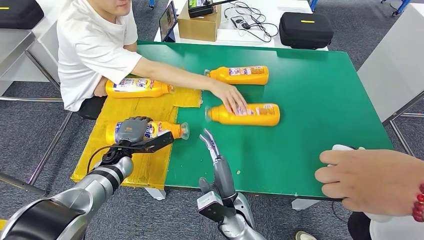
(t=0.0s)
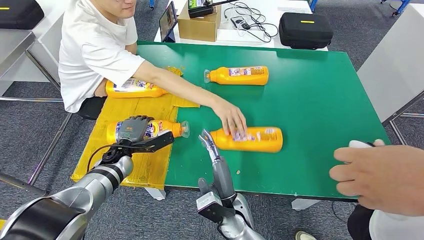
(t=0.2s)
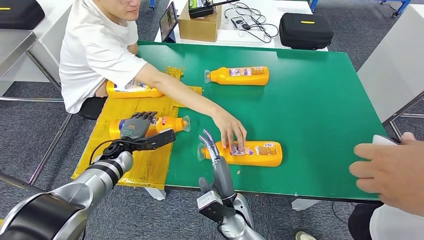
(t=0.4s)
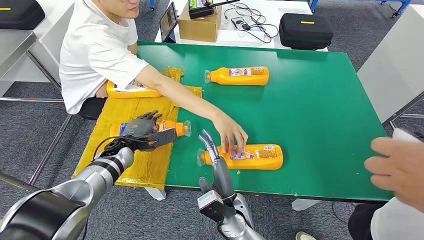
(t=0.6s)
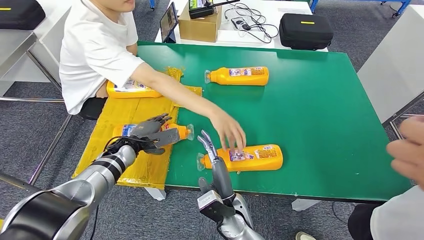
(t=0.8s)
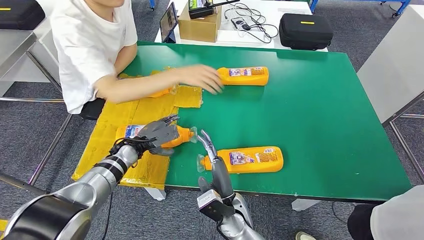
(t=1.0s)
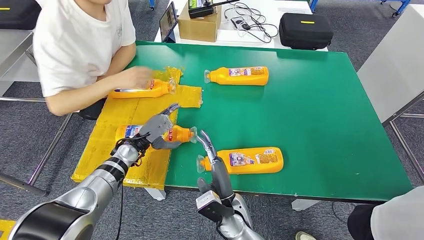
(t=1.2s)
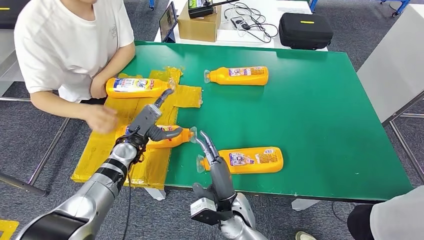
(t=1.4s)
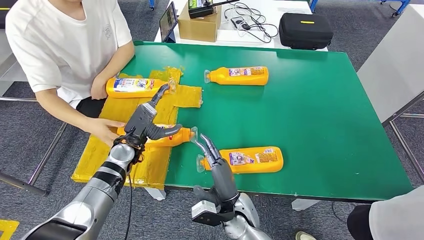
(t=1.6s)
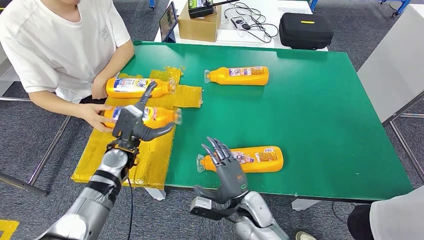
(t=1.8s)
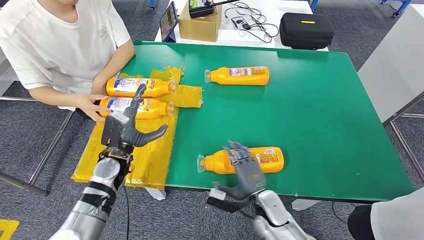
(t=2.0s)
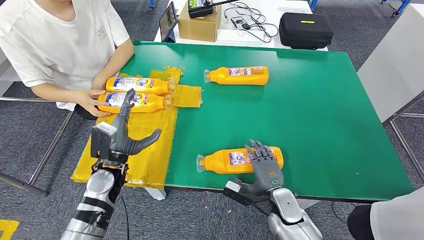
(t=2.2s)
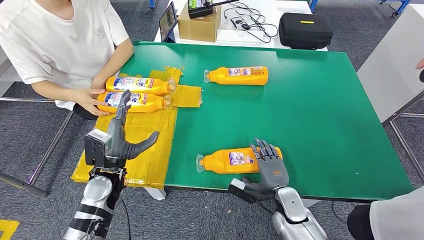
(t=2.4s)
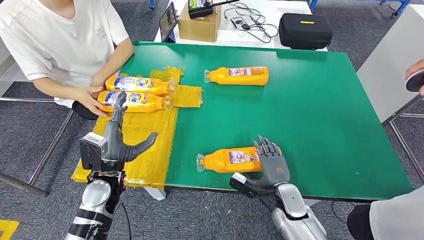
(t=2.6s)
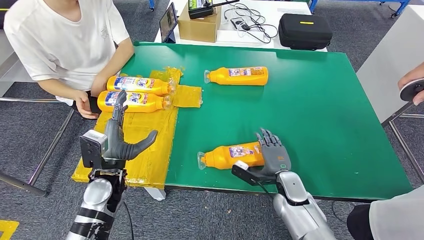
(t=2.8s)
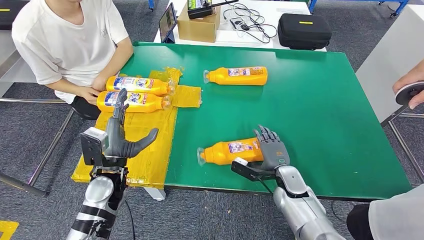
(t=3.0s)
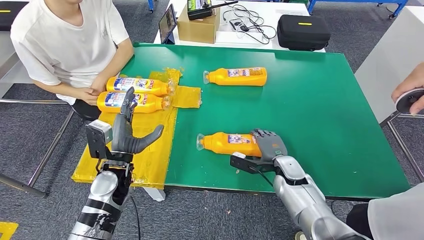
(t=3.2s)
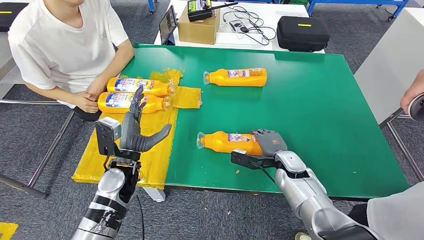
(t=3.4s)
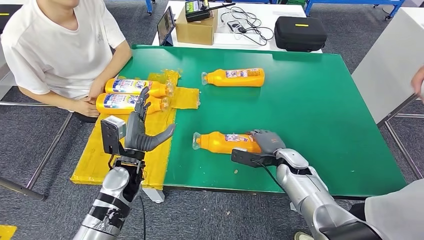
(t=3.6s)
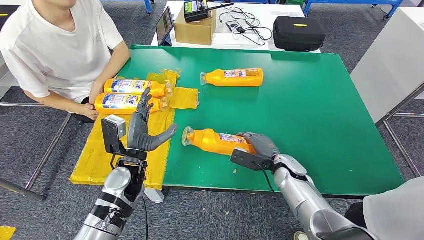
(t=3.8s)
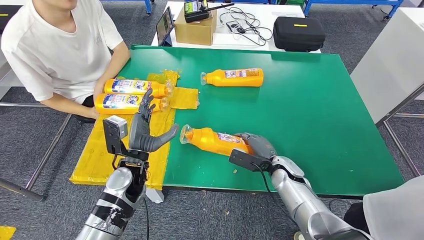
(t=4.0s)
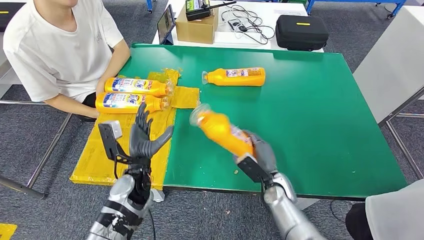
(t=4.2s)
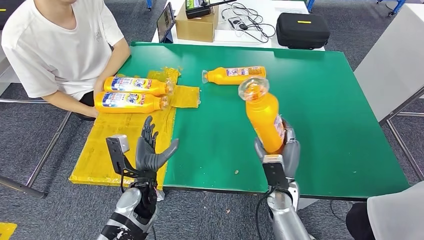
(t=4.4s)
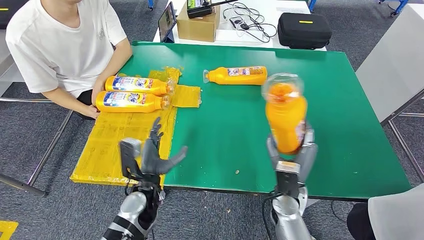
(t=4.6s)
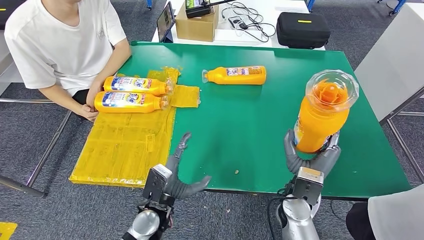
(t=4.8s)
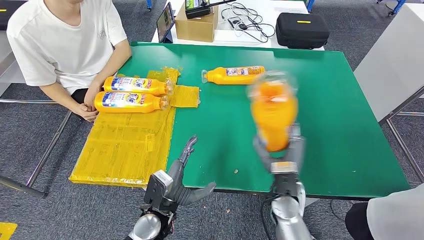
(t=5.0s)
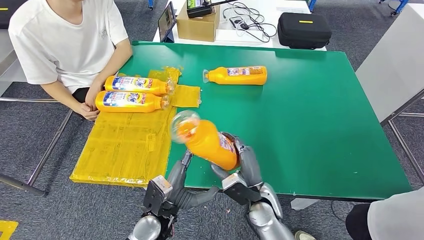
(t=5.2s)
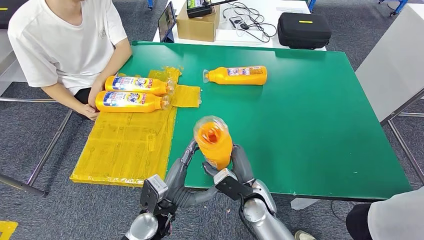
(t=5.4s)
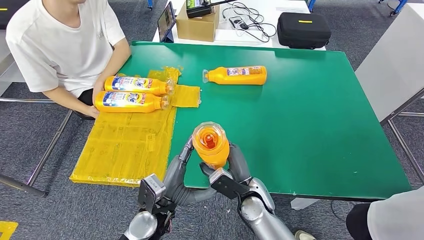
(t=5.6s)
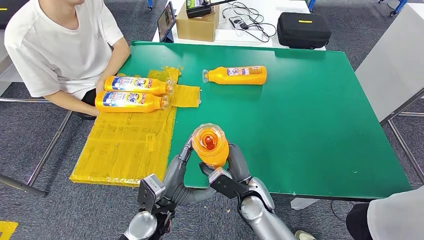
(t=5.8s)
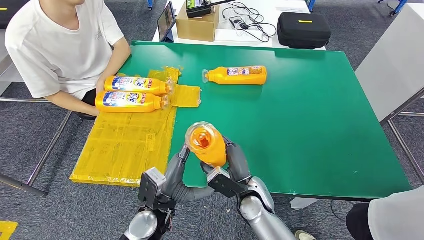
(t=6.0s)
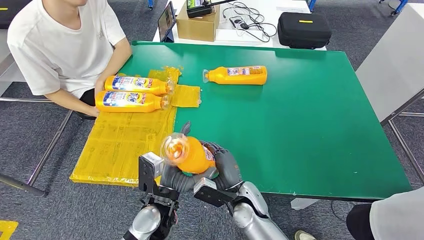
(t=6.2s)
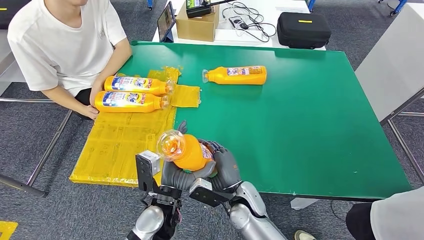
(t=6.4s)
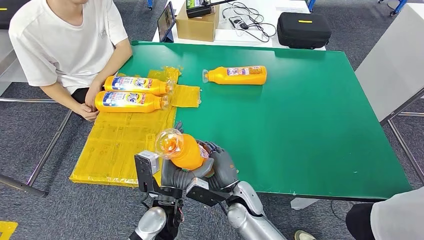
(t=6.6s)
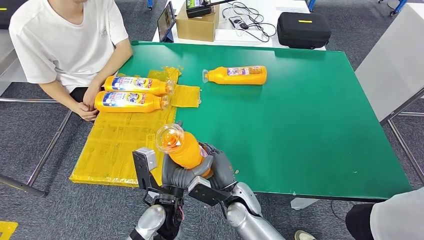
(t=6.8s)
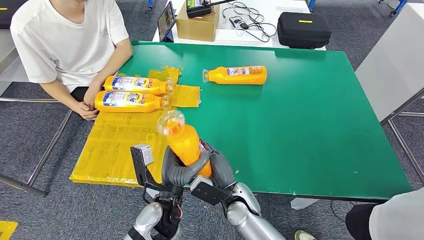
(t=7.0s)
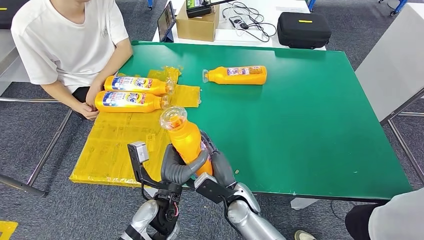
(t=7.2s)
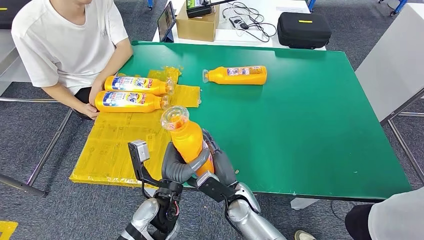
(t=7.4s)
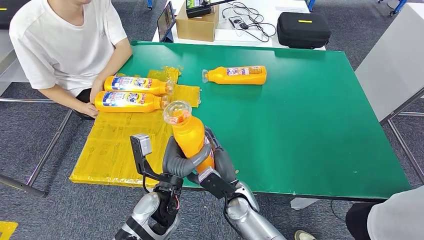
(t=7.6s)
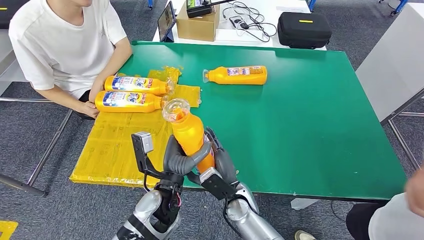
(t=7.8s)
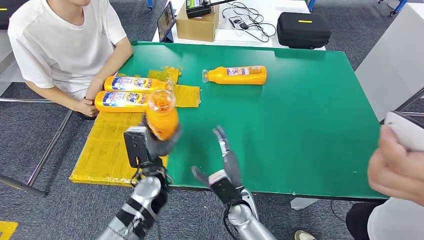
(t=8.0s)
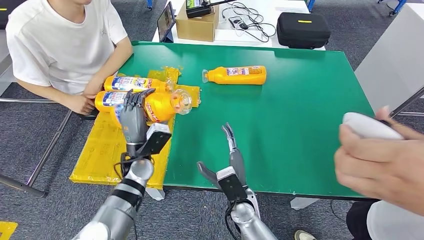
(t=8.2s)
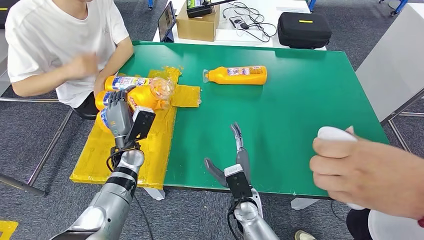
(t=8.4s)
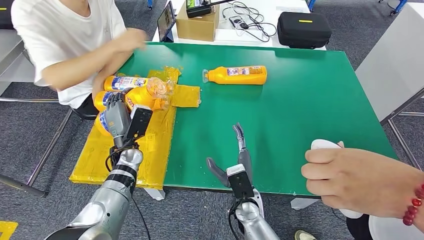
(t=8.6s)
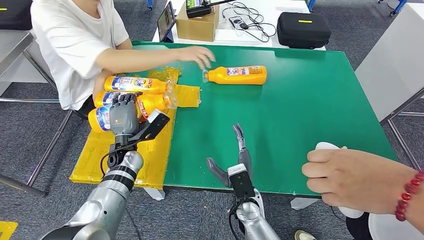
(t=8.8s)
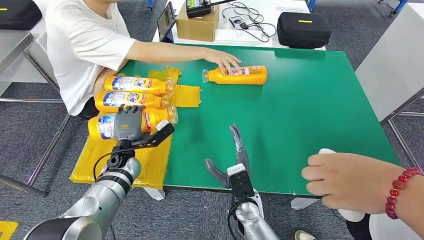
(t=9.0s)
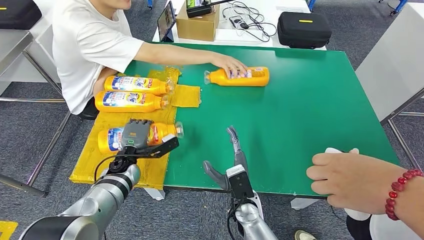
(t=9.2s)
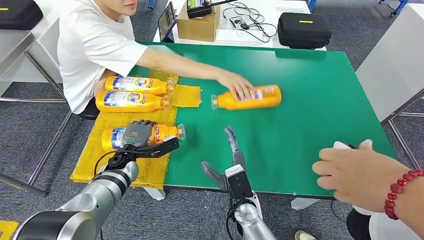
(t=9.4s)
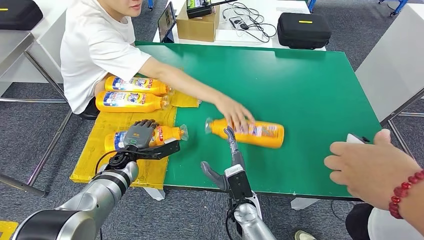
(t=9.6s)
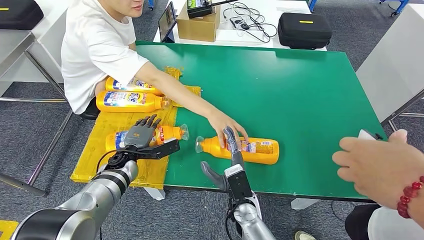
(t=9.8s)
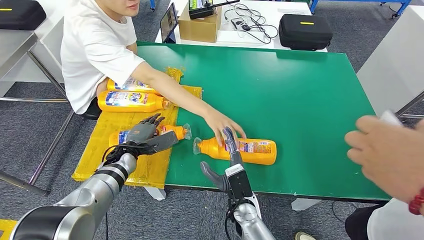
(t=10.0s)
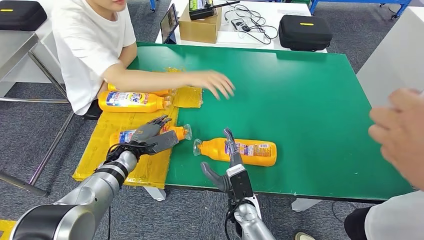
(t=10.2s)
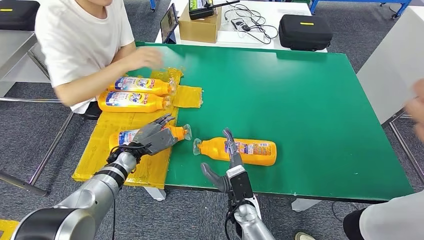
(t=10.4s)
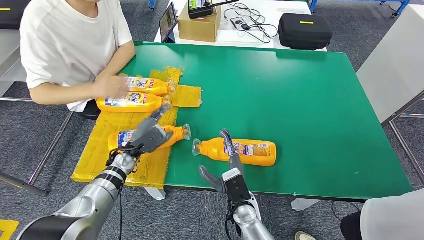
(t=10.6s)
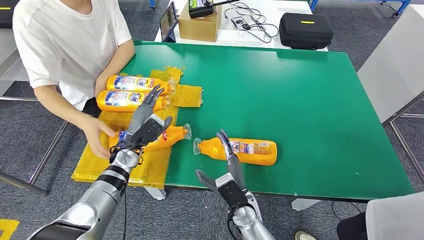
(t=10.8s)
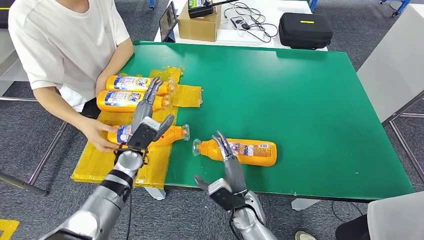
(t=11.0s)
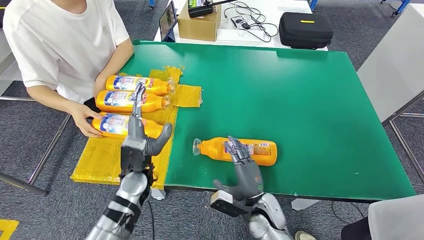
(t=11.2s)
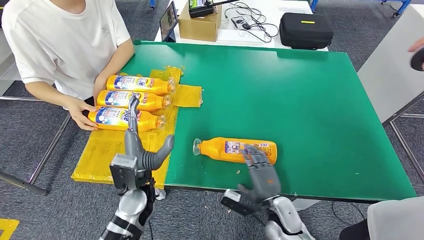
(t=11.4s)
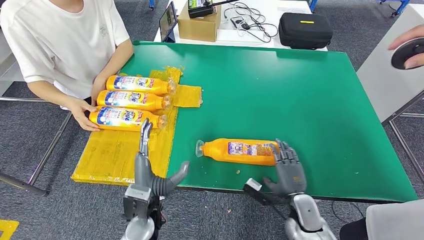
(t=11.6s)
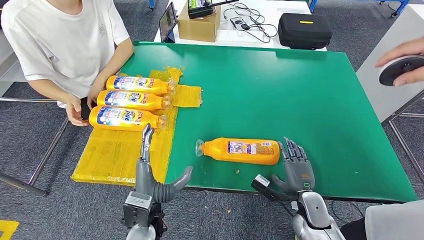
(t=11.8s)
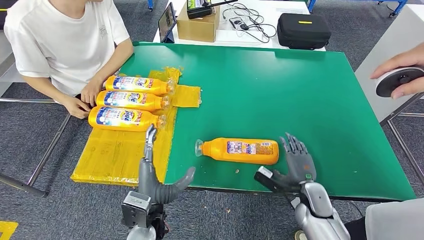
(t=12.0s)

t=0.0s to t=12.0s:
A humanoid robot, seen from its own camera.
Step, t=3.2s to t=4.8s: Pick up the fast-moving consumer goods bottle from the table.
Step, t=5.4s to t=10.8s: Flip the fast-moving consumer goods bottle to the front side.
t=4.4s to t=6.0s: The right hand travels to the left by approximately 5 cm. The left hand heads backward, covering some 5 cm.

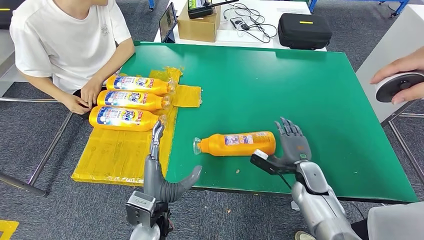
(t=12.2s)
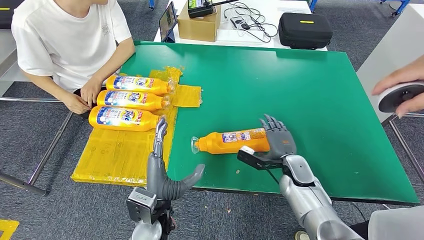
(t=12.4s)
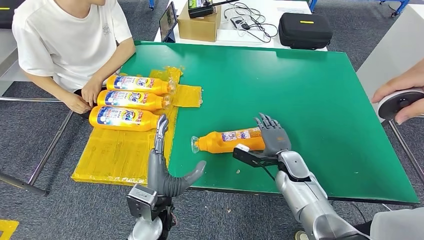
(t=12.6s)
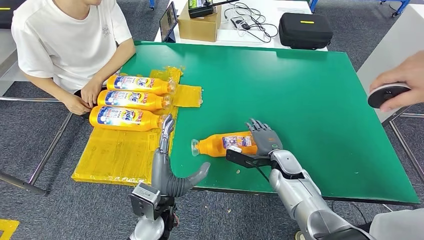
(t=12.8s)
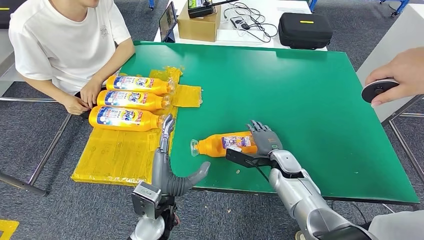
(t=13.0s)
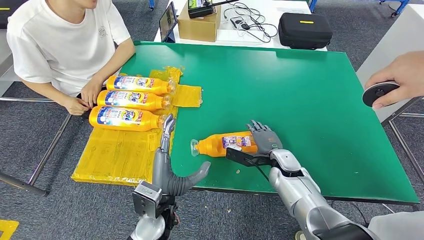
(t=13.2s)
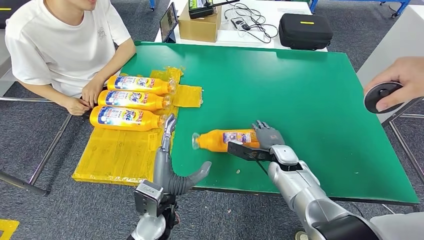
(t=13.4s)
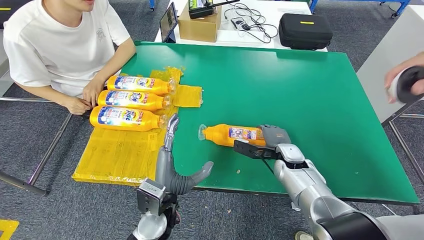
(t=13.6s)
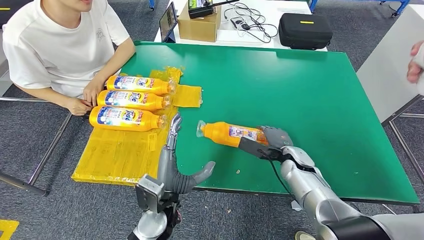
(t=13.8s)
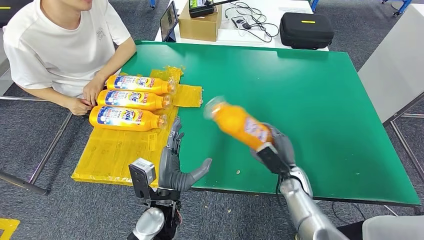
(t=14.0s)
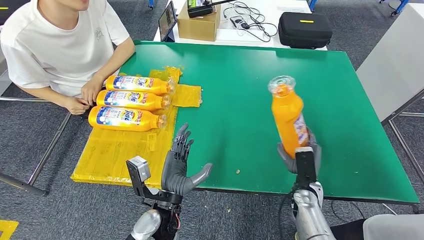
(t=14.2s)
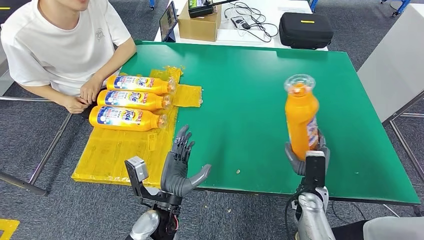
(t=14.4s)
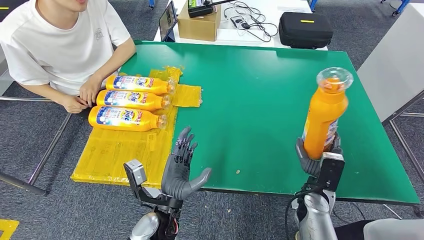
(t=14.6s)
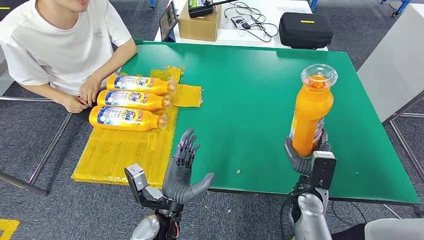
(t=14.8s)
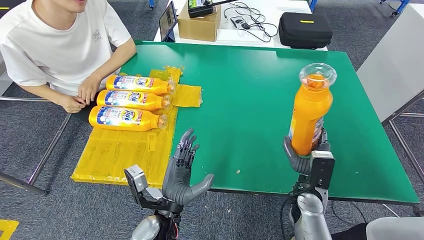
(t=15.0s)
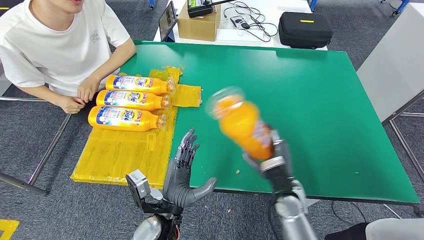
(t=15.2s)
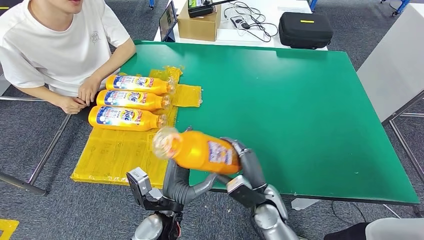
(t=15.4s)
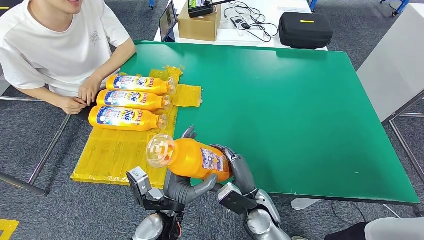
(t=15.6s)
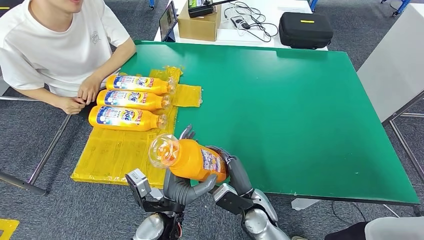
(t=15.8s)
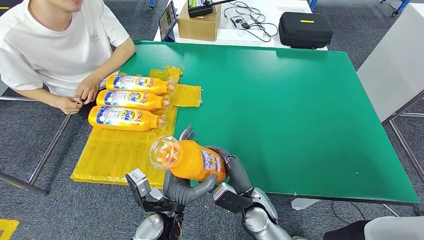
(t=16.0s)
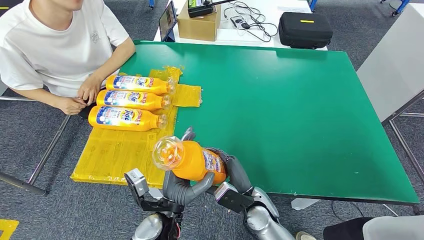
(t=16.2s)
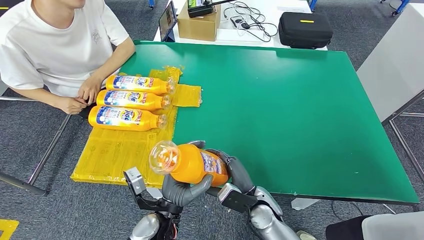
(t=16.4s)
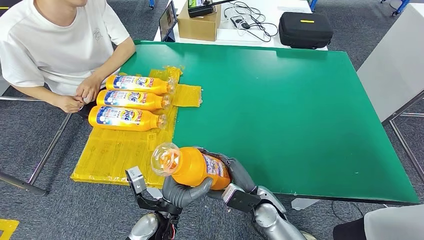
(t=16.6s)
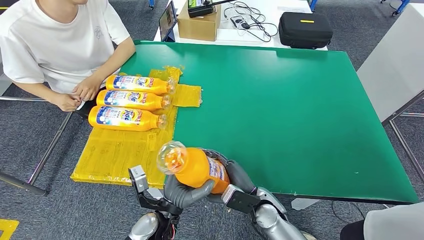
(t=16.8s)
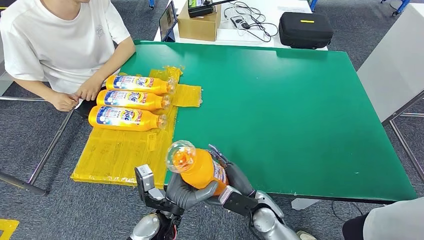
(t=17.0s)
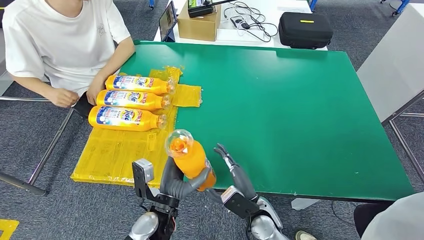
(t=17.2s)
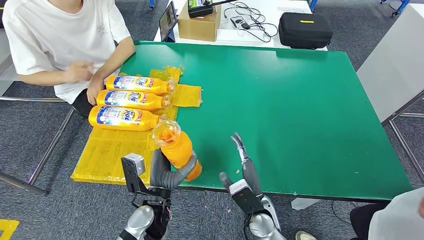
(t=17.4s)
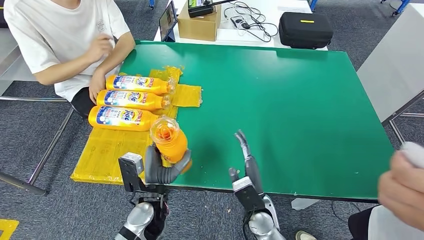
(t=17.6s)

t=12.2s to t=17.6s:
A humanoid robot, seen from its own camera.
Step, t=13.4s to t=15.2s: Pick up the fast-moving consumer goods bottle from the table.
t=12.2s to t=13.6s: The right hand changes place by about 5 cm.
t=15.0s to t=16.2s: The right hand goes about 15 cm to the left.
